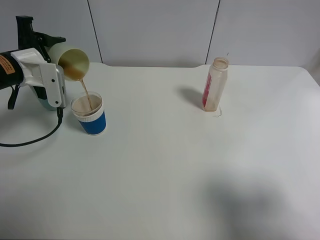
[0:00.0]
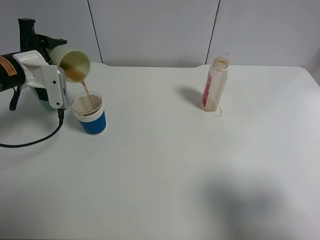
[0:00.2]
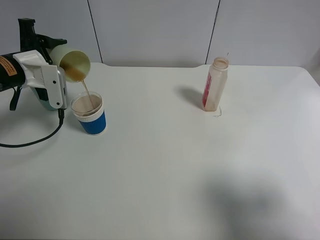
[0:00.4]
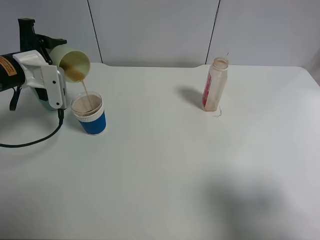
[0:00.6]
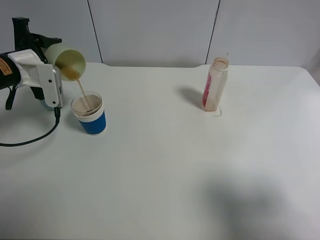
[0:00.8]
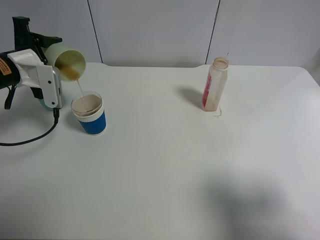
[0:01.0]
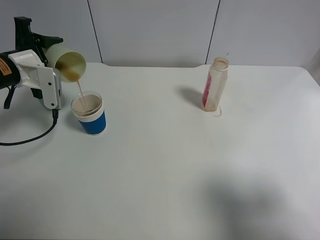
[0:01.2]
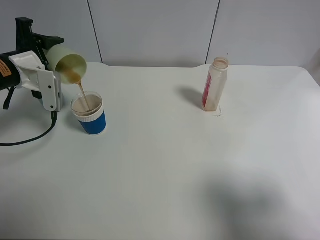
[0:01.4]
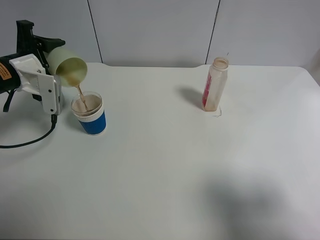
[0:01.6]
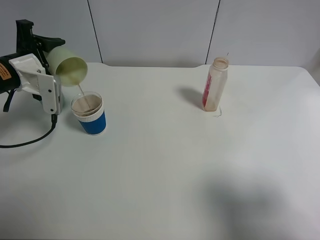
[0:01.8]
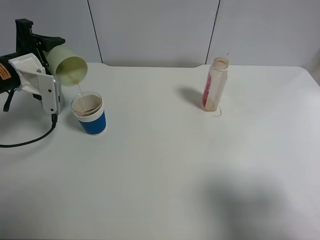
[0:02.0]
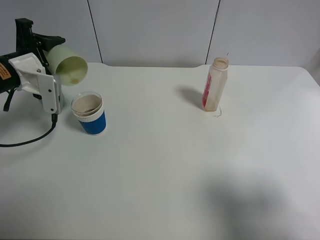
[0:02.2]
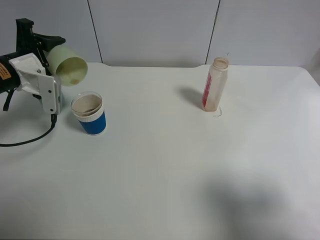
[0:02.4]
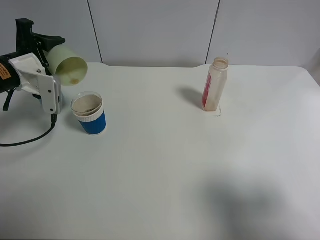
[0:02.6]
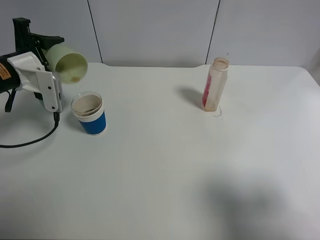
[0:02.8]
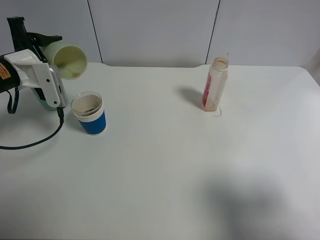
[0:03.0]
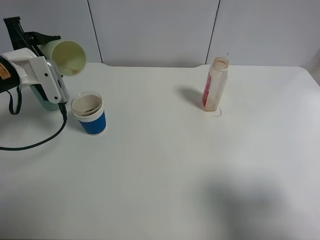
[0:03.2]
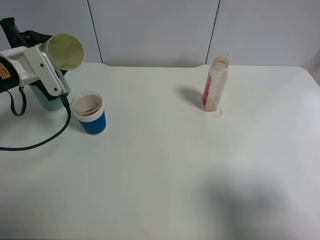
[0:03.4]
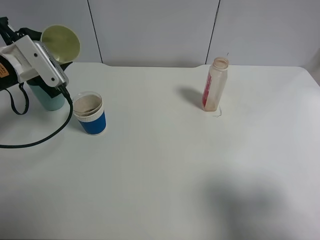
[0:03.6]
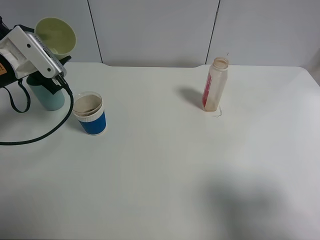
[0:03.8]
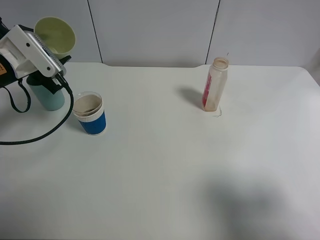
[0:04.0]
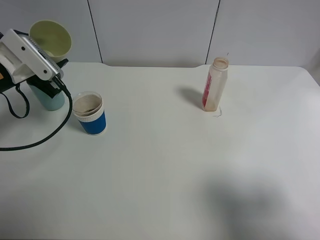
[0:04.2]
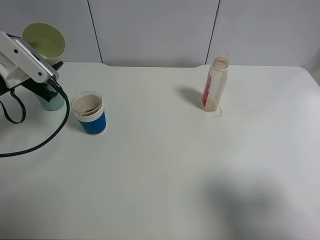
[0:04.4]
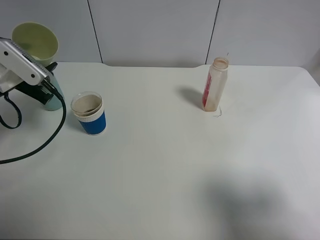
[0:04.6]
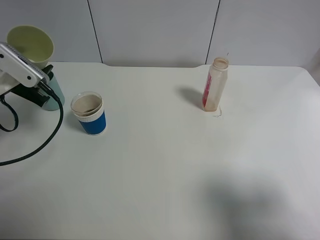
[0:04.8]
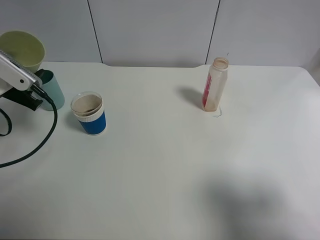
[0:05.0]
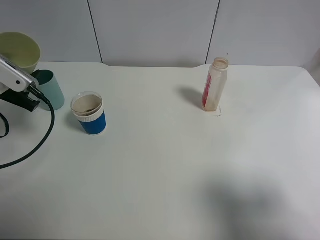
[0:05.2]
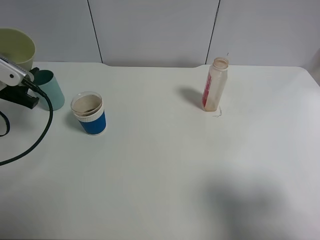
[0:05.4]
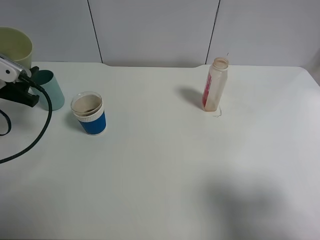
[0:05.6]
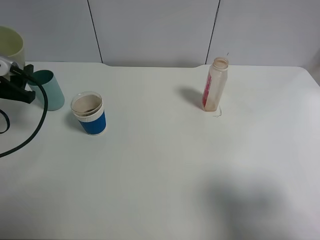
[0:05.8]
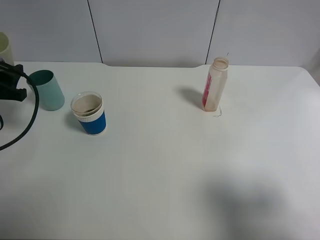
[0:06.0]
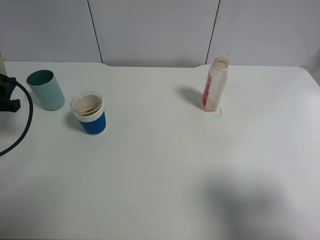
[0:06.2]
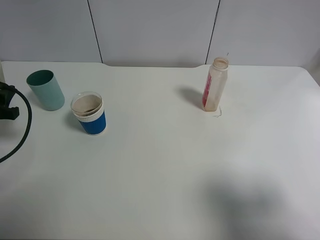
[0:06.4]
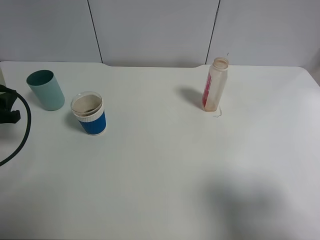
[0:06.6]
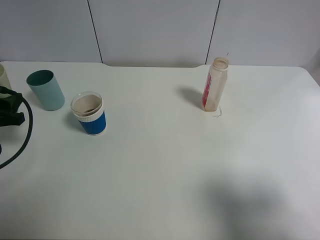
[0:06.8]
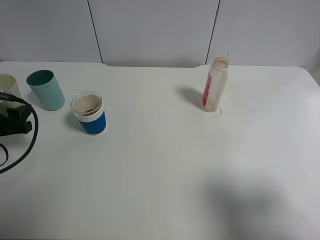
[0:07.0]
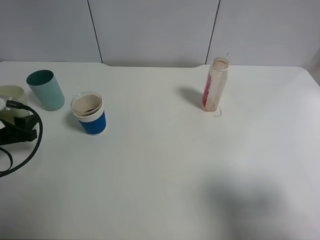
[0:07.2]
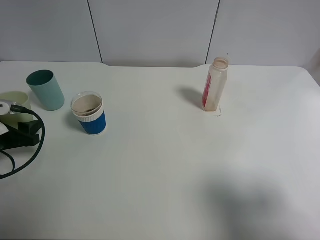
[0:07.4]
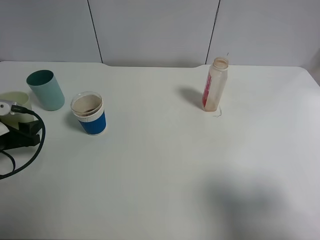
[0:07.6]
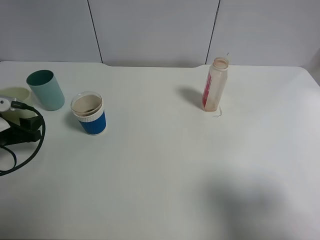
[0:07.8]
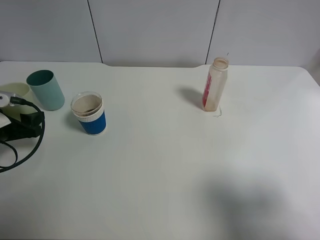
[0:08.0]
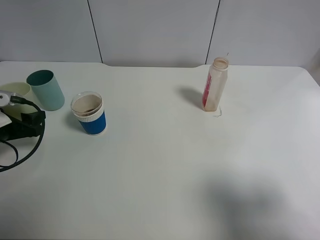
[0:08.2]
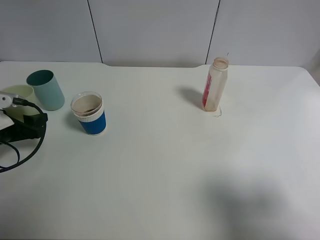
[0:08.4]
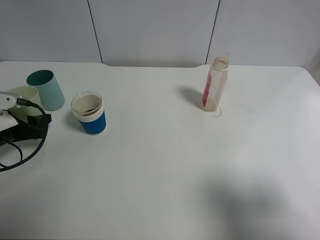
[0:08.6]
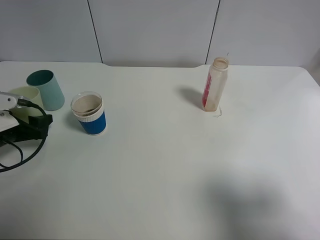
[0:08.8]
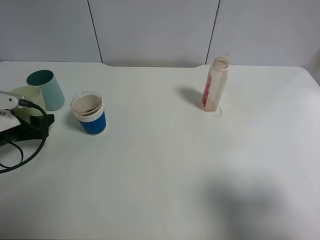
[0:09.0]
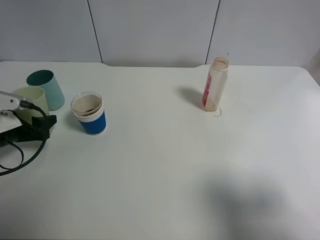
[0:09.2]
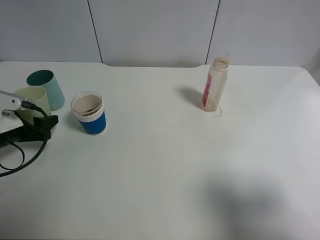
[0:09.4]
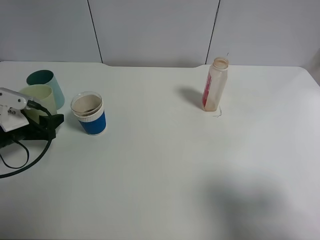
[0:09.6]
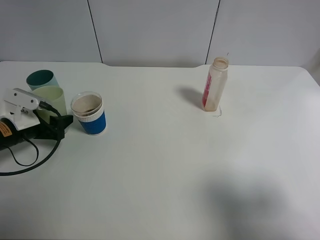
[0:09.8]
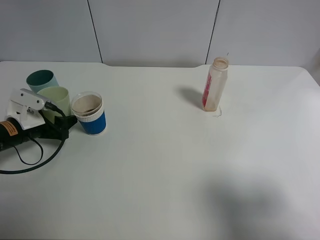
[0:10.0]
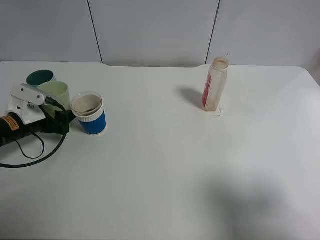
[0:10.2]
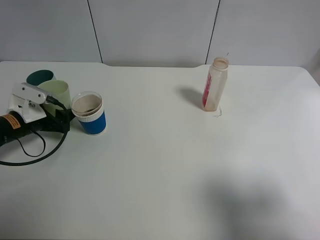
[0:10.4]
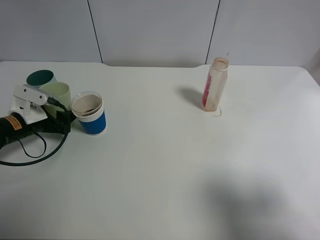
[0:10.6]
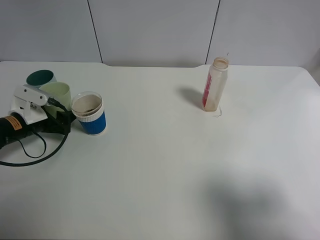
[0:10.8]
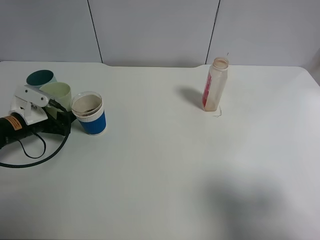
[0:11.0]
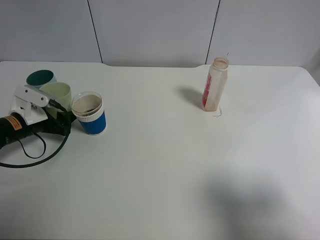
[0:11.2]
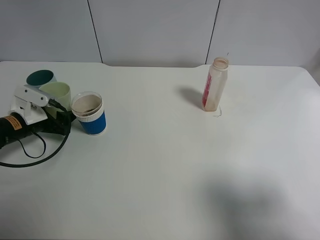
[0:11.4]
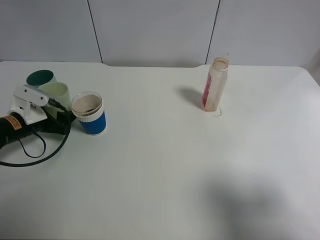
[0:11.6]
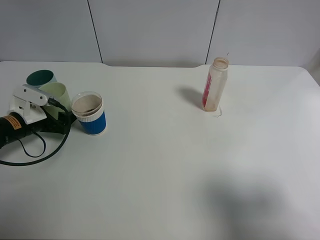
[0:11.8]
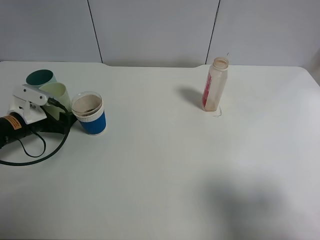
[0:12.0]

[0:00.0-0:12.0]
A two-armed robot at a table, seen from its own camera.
Task of the whole recording: use a clamp to hold the bottle of the drink, pour the beverage into a random cup, then clamp the cup containing the drink and pour the drink into another random cup.
Step, 0:00.0 to 0:02.8: Pour the drink into the paper cup with left gripper.
0:00.0 to 0:03.0: The grippers move only a little.
0:04.4 to 0:06.0: The left gripper goes roughly 5 cm to the left.
0:06.0 to 0:07.6: The left gripper goes approximately 10 cm downward.
0:07.6 to 0:09.0: The grippers move only a little.
0:09.0 to 0:10.4: The left gripper changes place by approximately 5 cm.
0:10.4 to 0:12.0: The left gripper opens its fingers.

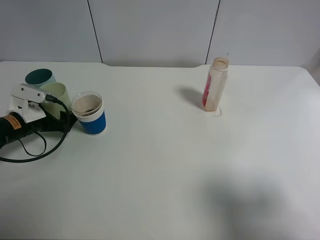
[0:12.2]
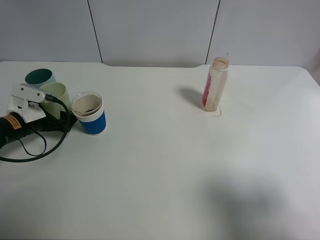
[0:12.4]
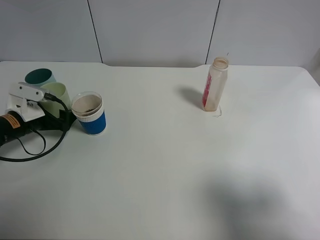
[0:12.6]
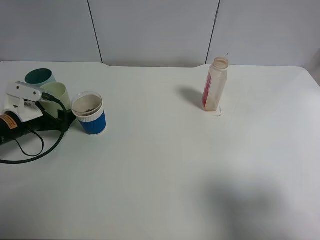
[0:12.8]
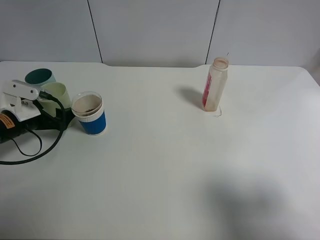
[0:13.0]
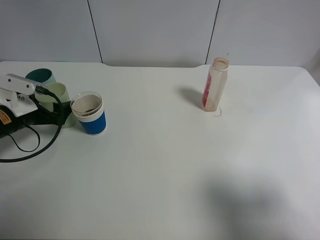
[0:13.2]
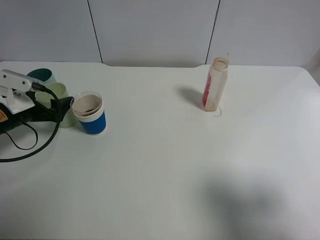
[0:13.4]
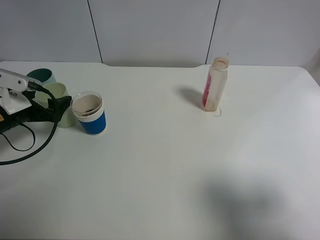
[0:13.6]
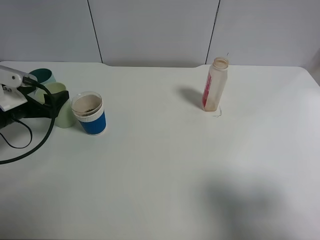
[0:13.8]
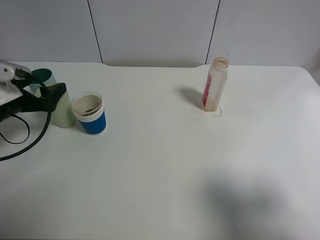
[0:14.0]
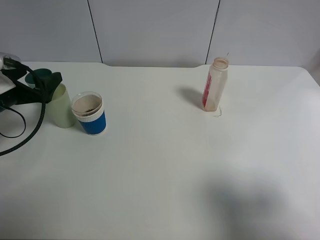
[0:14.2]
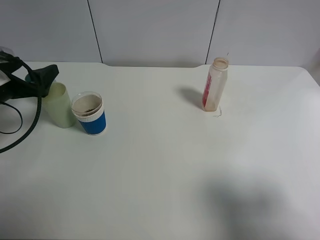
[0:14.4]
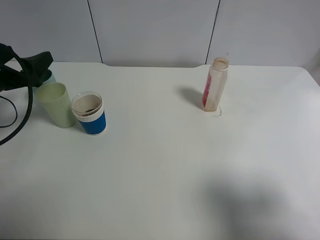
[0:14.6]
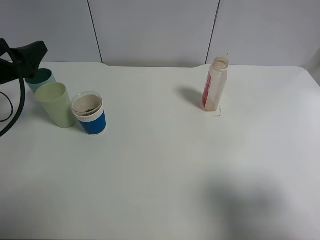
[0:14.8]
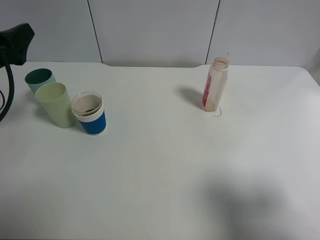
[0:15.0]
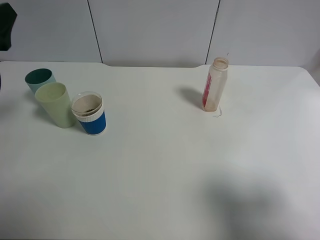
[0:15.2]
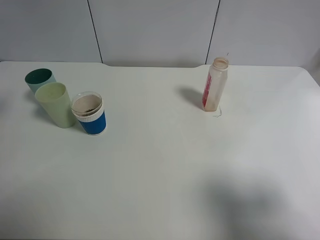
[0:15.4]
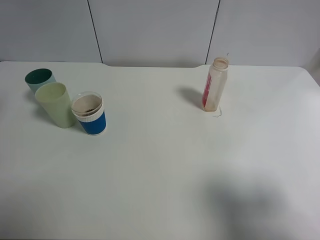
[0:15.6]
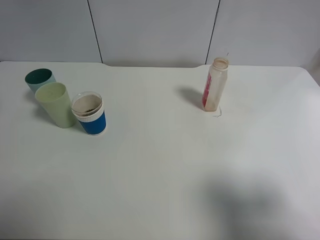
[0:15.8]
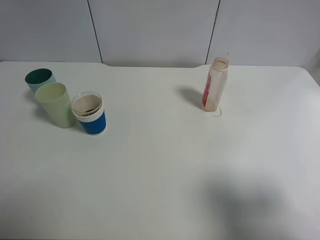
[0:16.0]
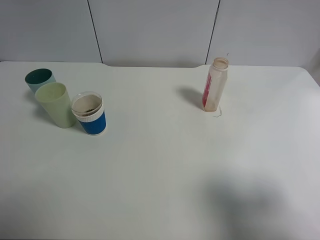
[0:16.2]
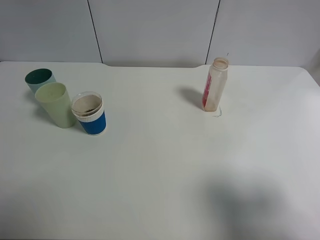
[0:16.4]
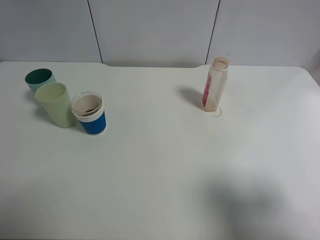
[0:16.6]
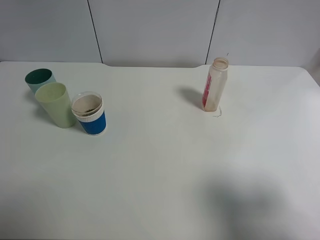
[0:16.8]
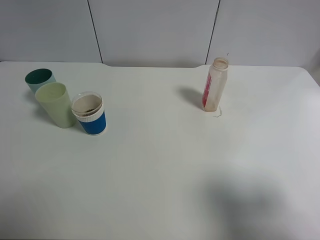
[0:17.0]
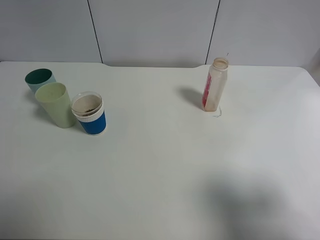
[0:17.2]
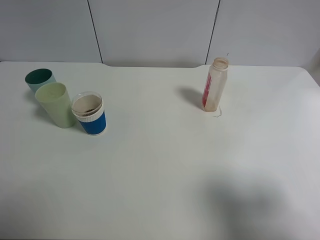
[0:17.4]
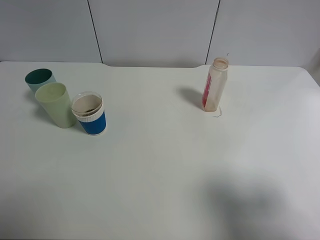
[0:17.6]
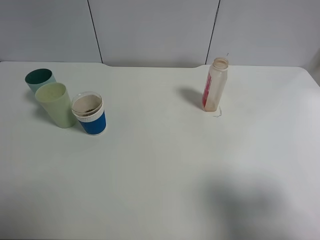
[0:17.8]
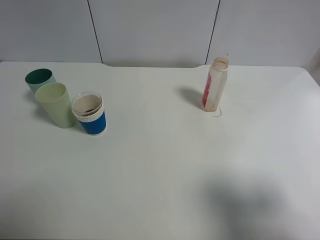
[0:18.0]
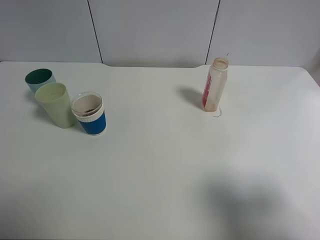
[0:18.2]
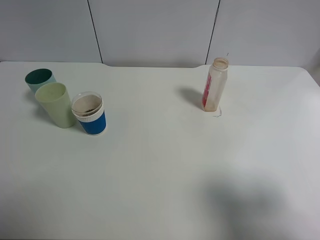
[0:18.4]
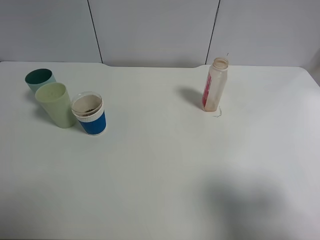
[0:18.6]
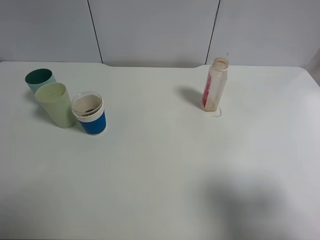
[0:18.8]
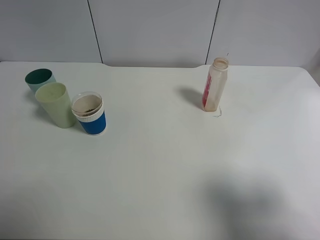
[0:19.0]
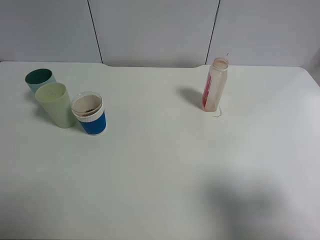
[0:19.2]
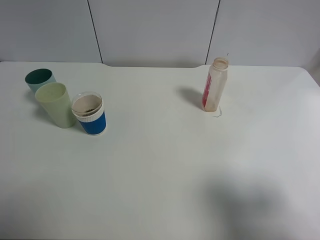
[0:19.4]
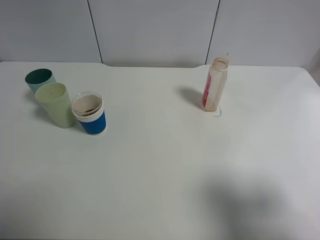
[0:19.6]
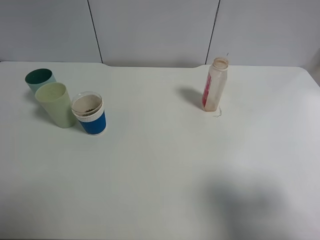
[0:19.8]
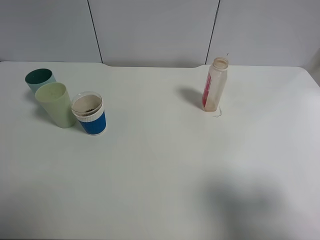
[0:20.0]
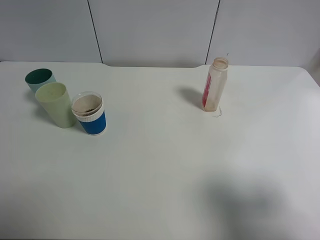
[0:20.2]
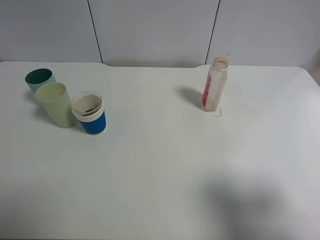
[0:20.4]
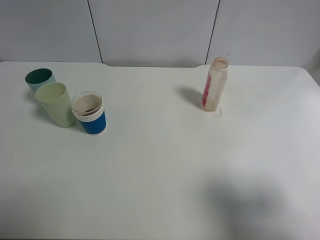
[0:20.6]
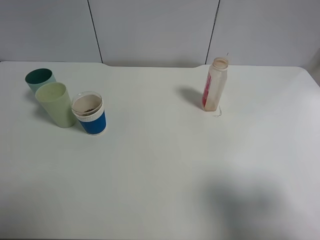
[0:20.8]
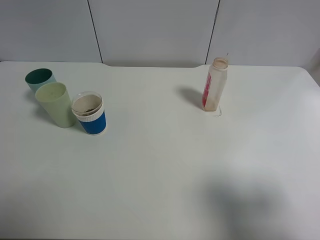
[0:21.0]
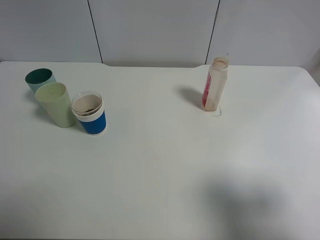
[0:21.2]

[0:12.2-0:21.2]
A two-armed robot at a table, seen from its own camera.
Task of the whole recording: use a clamp to hold the bottle of the drink, pour the beverage into a random cup, then clamp the cup containing the drink and pour the drink into another random cup.
0:12.2 to 0:13.8: The left gripper heads upward, covering about 5 cm.
0:13.8 to 0:15.2: The left gripper travels upward by roughly 10 cm.
0:15.2 to 0:16.6: The left gripper is displaced backward by about 10 cm.
0:19.8 to 0:21.2: Neither gripper changes place.

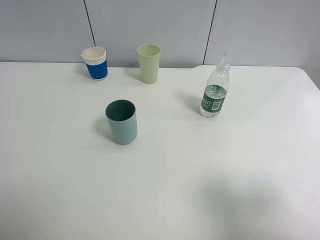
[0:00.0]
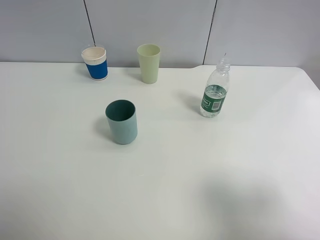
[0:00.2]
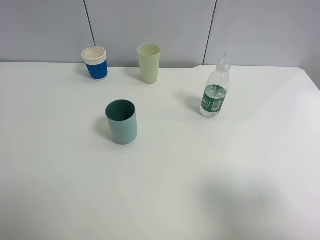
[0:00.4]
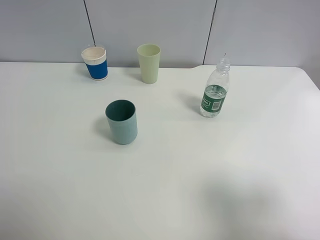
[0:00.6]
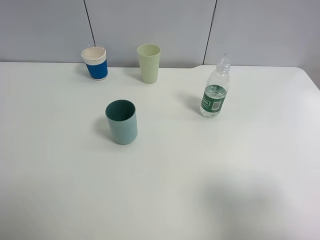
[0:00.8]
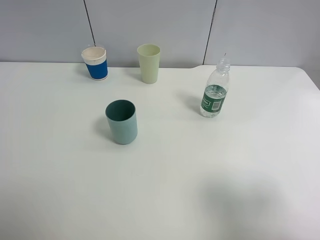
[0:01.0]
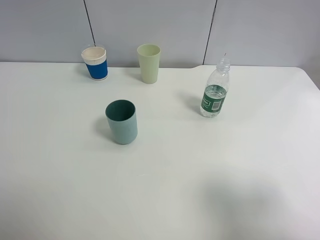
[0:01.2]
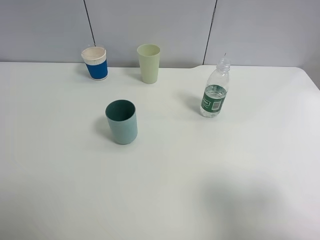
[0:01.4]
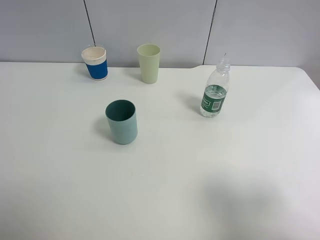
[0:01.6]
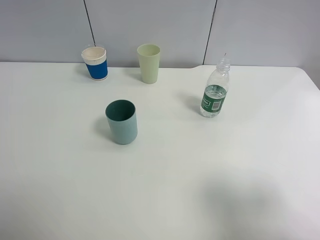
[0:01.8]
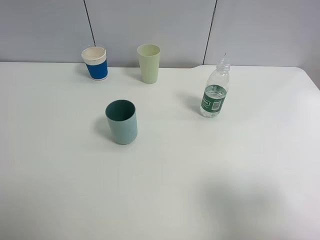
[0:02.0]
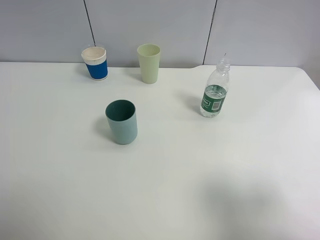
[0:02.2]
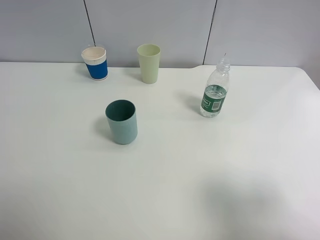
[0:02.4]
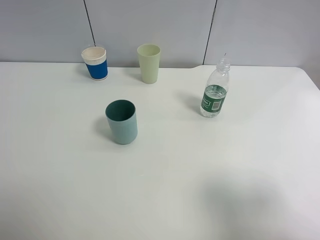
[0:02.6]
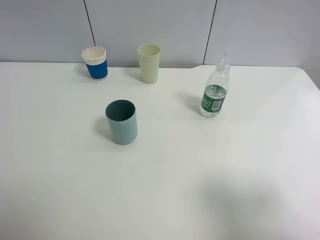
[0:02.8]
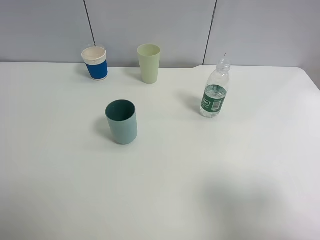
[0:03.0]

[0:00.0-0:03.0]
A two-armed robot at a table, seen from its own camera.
Task of the whole recording: use a clamp to hold the bottle of the drink, pour the beverage into a random cup, then clamp the cup containing the drink and pour the drink into another random cup.
0:00.0 to 0:03.0: Both grippers stay put.
